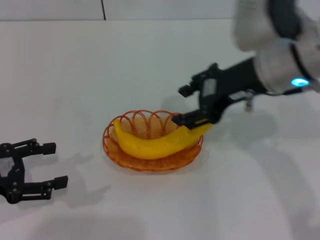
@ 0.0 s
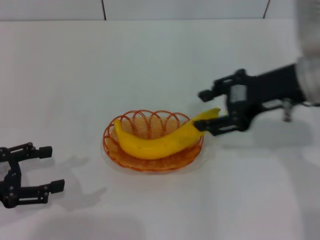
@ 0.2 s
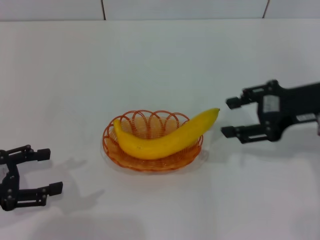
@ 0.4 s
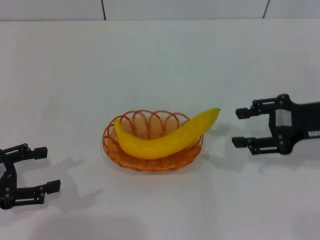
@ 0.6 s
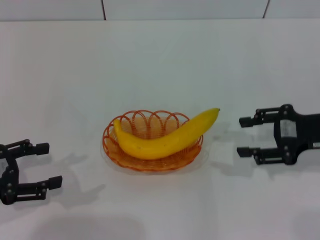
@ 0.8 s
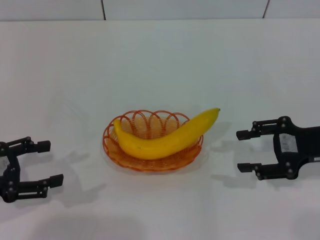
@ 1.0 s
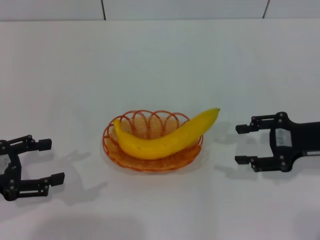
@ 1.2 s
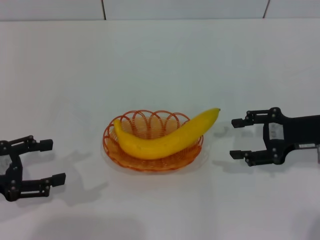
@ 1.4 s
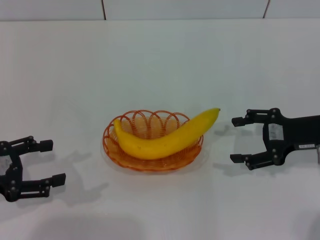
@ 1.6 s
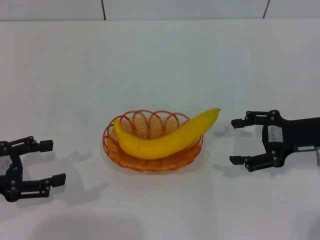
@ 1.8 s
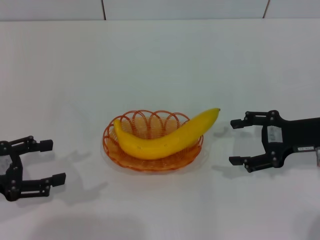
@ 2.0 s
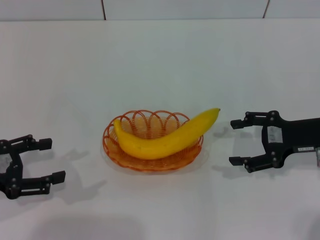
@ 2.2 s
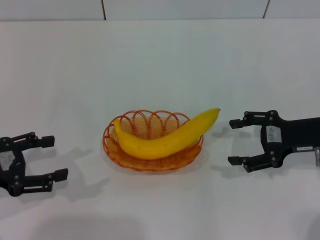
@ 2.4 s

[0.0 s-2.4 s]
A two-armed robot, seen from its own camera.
0.0 to 1.2 s: The right gripper goes some 20 cm to the right and downward.
1.2 to 2.4 s: The right gripper opens.
